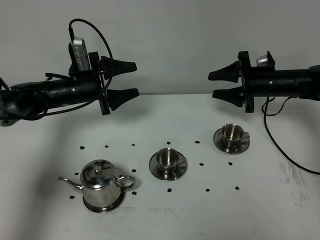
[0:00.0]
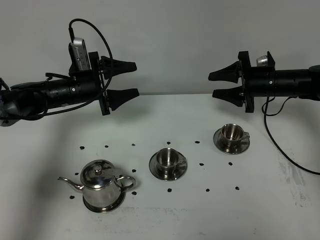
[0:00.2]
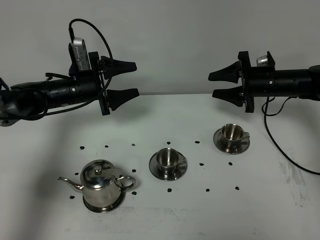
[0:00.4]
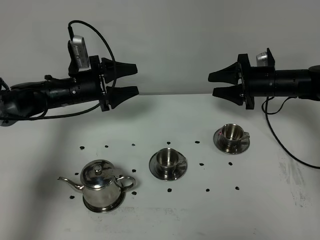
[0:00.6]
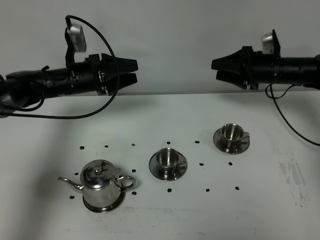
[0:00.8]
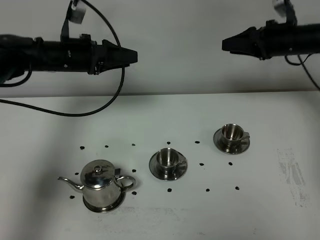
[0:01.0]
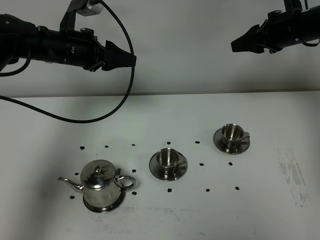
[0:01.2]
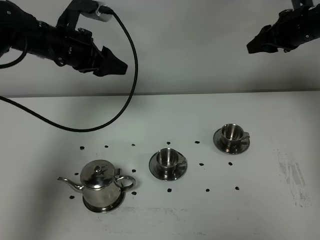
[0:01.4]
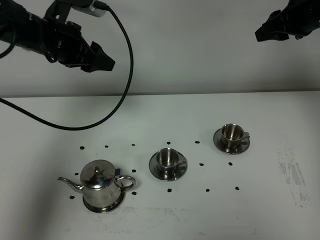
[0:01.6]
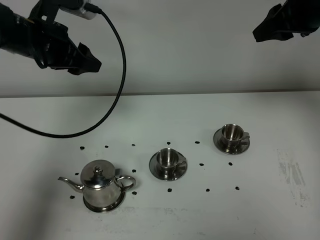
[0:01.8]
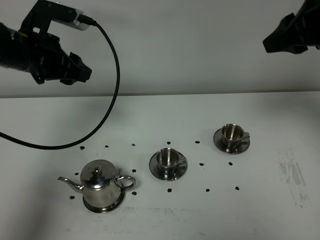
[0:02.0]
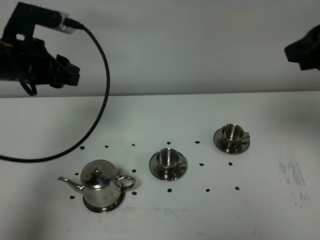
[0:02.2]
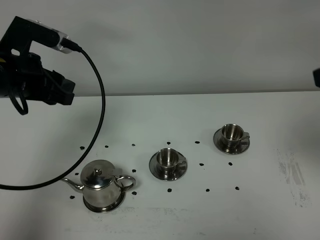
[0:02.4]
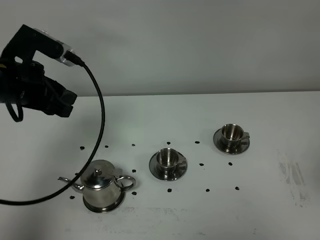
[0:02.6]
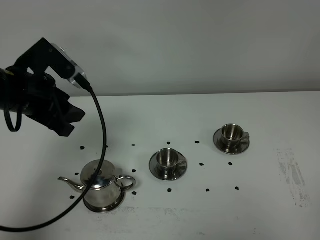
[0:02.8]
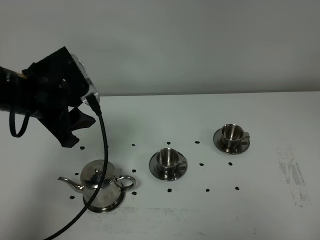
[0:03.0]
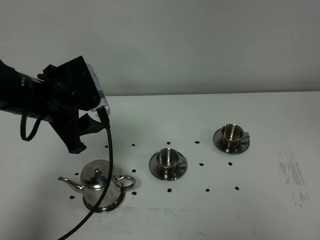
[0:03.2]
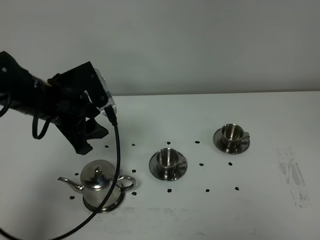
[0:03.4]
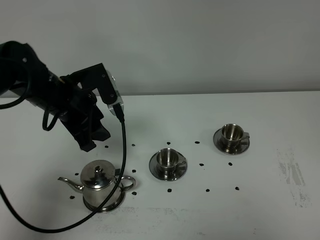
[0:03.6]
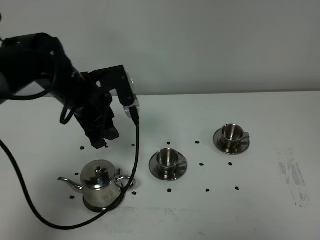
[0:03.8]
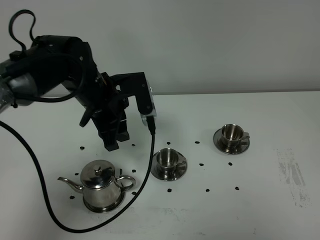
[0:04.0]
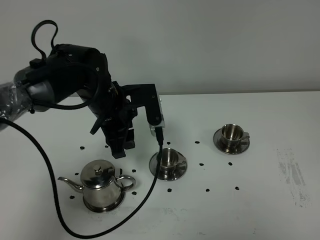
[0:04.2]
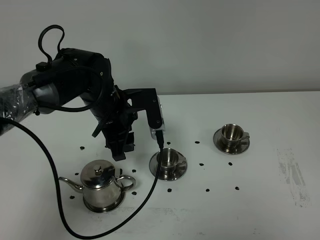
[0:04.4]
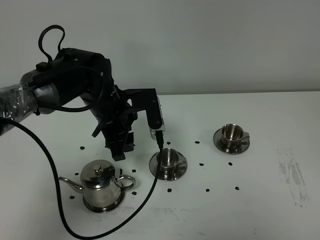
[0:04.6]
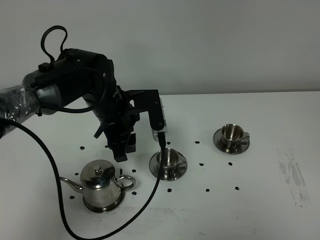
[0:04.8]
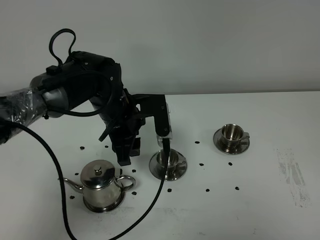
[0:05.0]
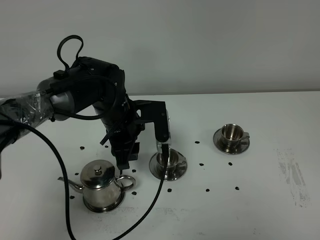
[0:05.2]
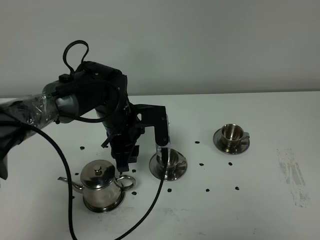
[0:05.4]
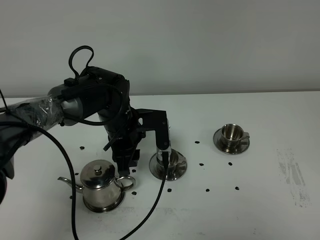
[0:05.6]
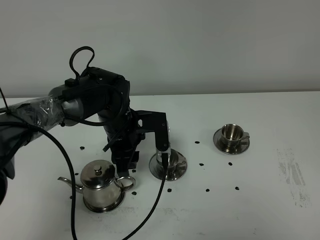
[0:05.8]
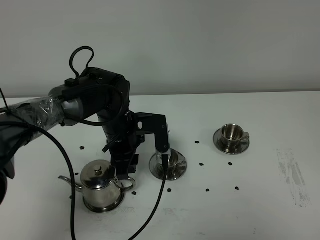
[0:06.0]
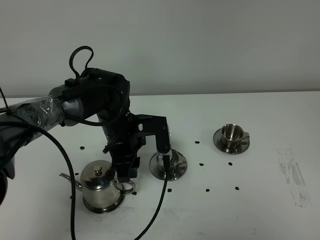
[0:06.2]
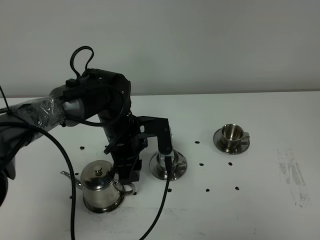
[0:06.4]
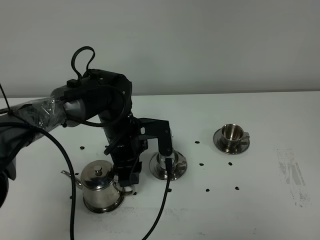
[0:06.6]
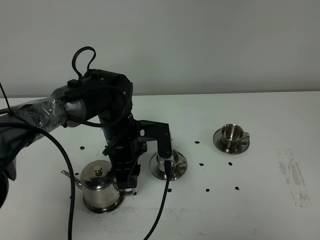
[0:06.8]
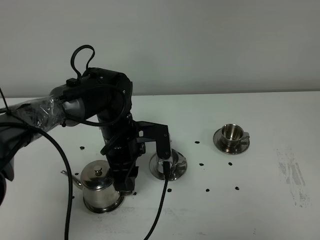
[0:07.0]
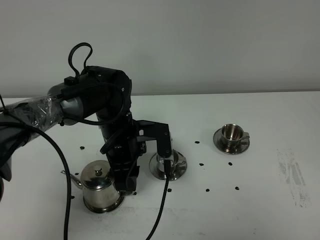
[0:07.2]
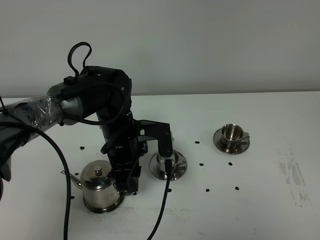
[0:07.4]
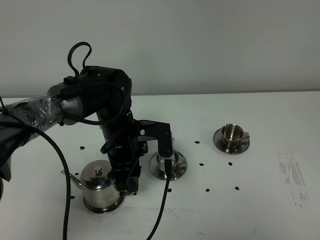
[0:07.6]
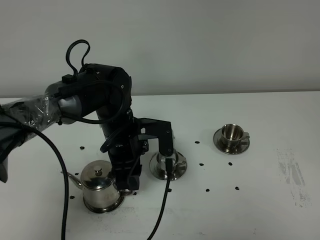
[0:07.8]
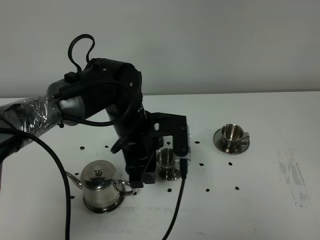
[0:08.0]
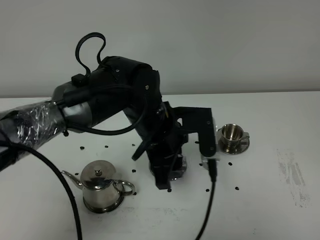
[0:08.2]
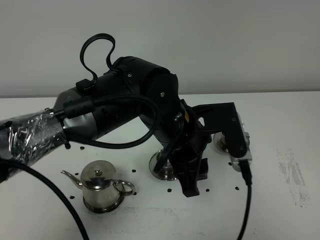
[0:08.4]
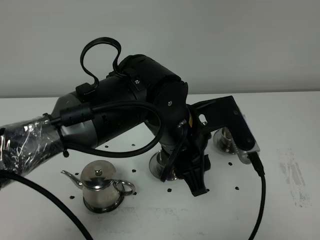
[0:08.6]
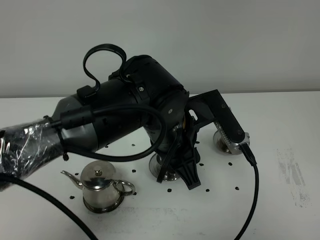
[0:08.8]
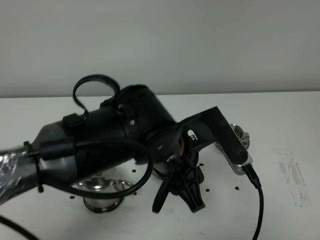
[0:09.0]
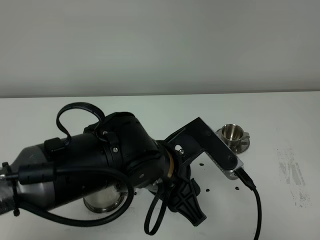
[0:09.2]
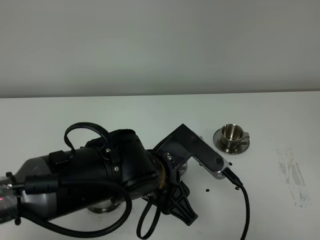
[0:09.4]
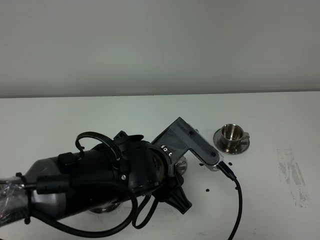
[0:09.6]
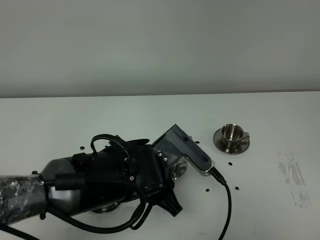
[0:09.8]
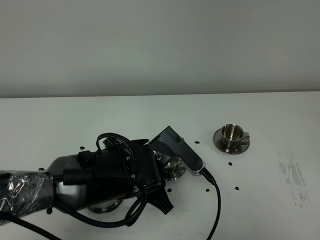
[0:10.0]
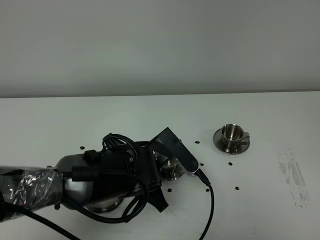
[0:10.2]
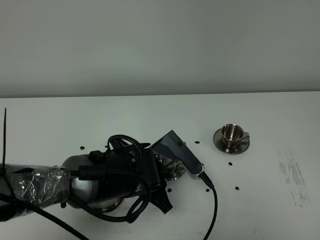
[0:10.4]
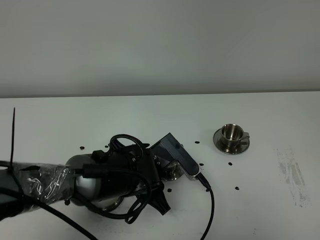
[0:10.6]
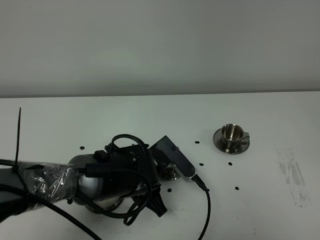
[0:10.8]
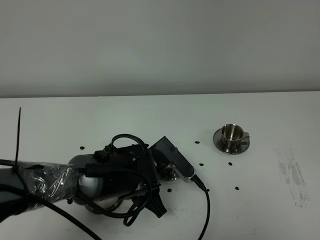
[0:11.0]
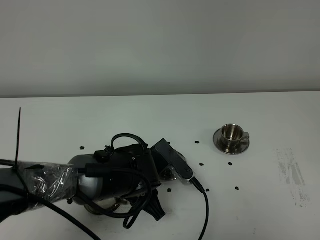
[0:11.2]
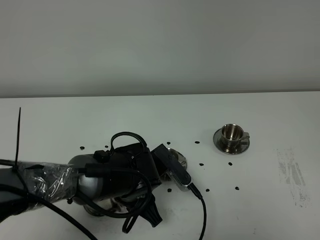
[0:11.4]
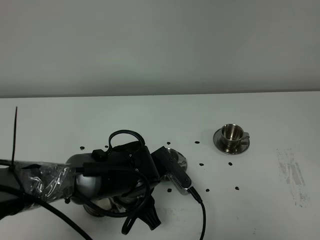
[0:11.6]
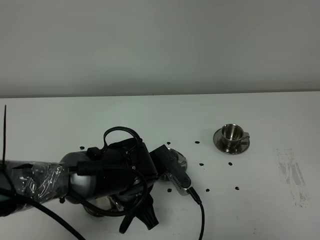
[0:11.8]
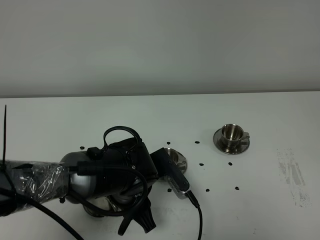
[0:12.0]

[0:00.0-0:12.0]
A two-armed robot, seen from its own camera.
Task of the whole recording: grasp the stainless steel teapot and pour the tea into the two stainless steel teacups one by one, put the stainless steel teapot back in its original place.
0:00.0 to 0:01.6: The two grippers go approximately 20 cm upward.
0:01.6 to 0:03.0: The left gripper goes some 10 cm backward. Meanwhile the right gripper heads backward, covering some 50 cm, and closes its fingers.
0:03.0 to 0:04.4: The right gripper shifts roughly 10 cm downward, and closes; the left gripper moves to the right, downward and forward, about 15 cm.
0:04.4 to 0:06.0: The grippers make only small movements.
0:06.0 to 0:07.6: The grippers move only a little.
0:07.6 to 0:09.0: The left gripper travels backward, to the right and upward by approximately 15 cm.
0:09.0 to 0:10.4: The left gripper is displaced downward by about 10 cm.
0:10.4 to 0:12.0: The grippers move only a little.

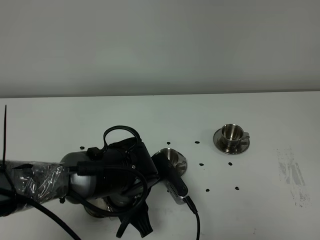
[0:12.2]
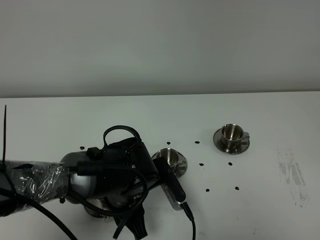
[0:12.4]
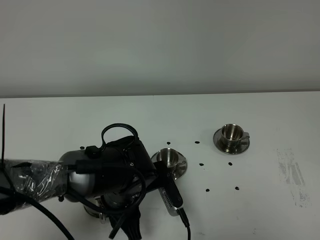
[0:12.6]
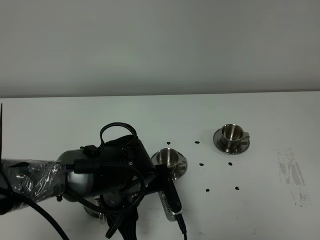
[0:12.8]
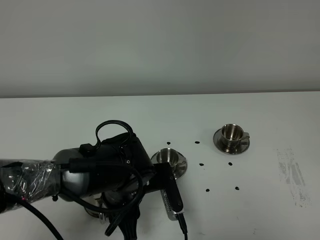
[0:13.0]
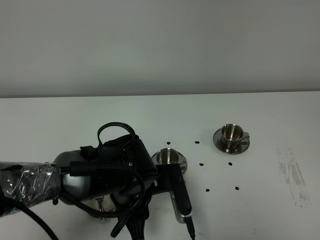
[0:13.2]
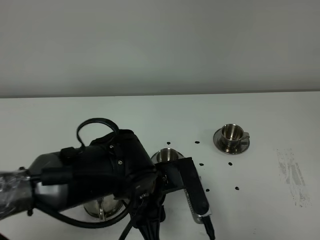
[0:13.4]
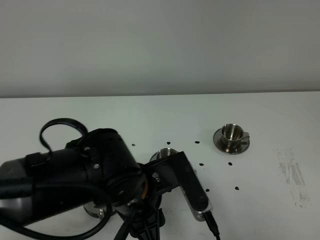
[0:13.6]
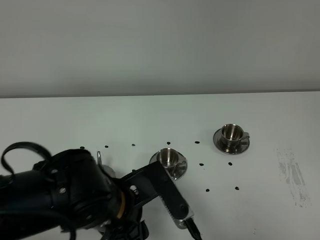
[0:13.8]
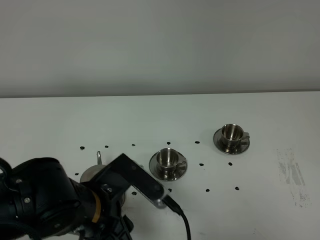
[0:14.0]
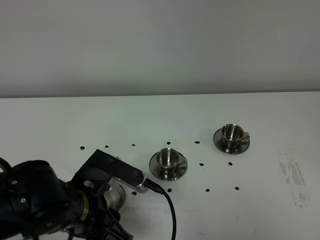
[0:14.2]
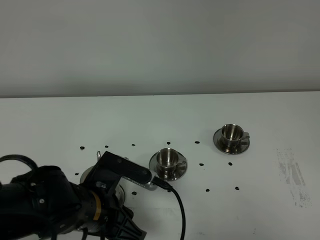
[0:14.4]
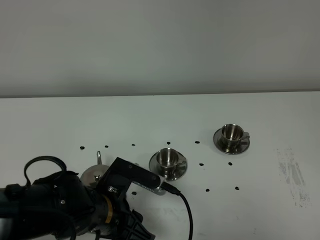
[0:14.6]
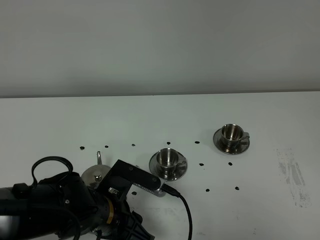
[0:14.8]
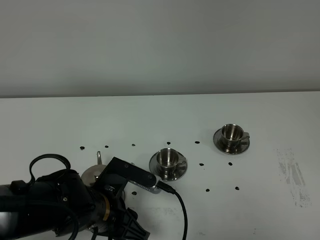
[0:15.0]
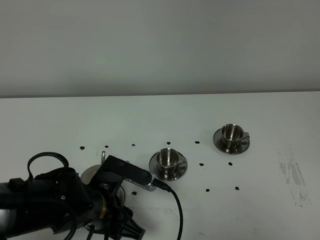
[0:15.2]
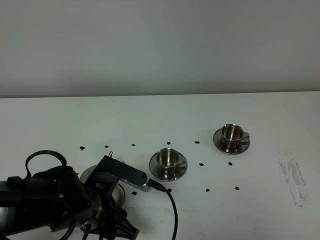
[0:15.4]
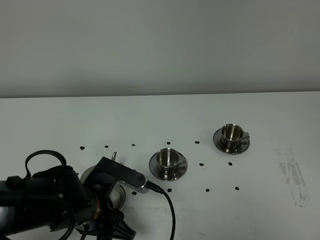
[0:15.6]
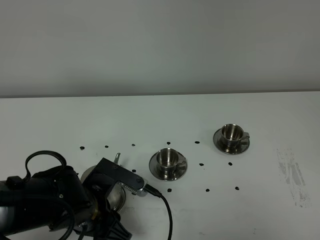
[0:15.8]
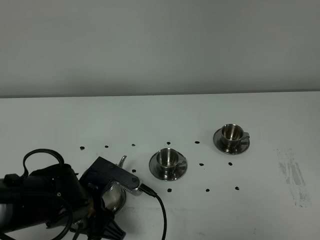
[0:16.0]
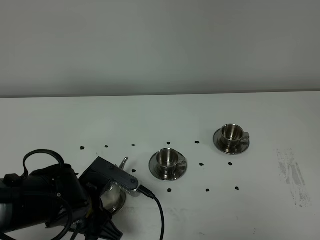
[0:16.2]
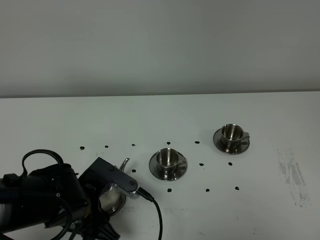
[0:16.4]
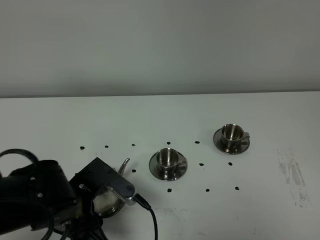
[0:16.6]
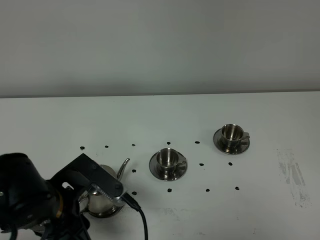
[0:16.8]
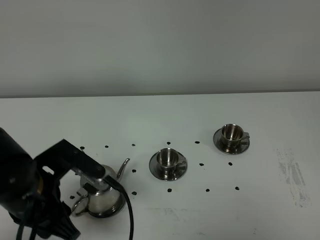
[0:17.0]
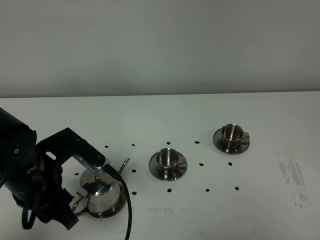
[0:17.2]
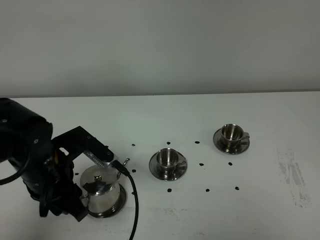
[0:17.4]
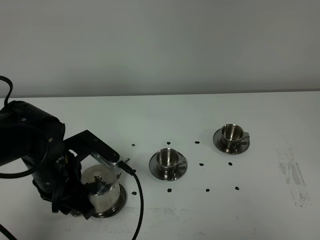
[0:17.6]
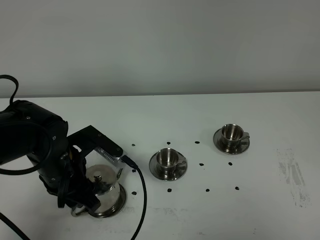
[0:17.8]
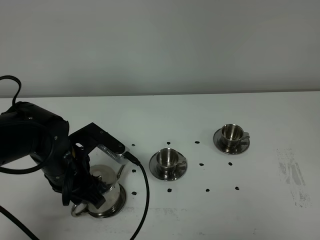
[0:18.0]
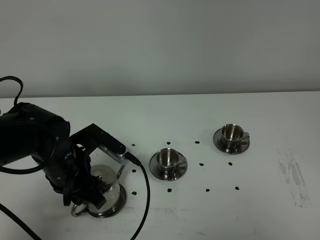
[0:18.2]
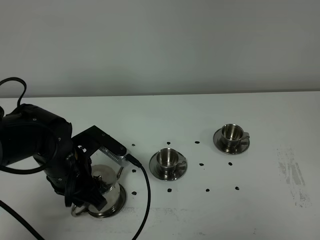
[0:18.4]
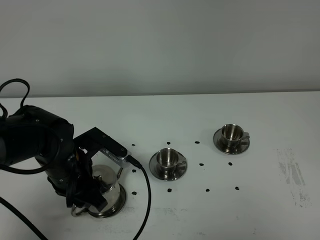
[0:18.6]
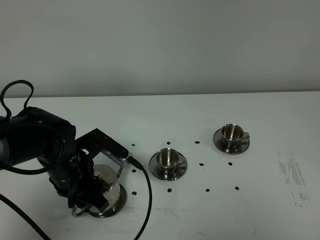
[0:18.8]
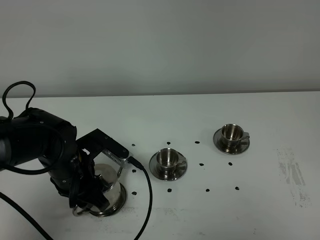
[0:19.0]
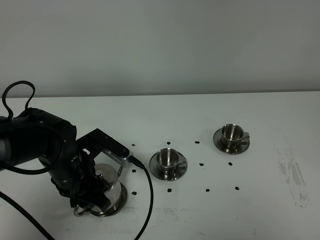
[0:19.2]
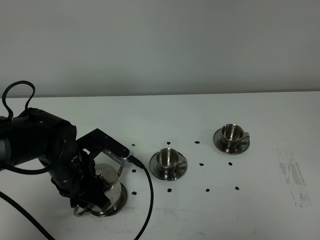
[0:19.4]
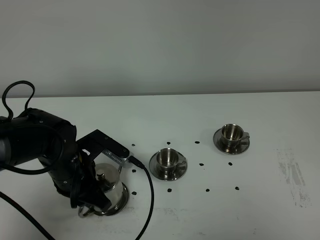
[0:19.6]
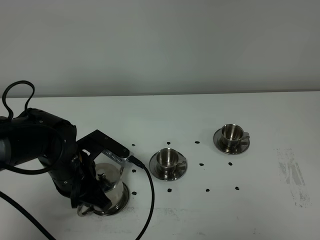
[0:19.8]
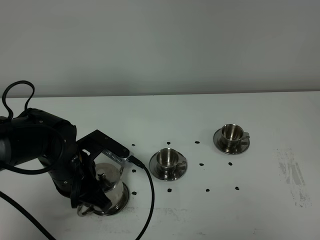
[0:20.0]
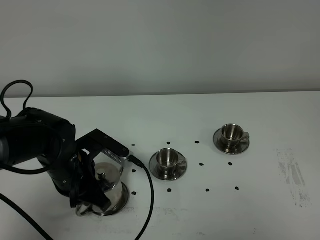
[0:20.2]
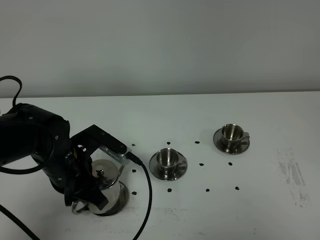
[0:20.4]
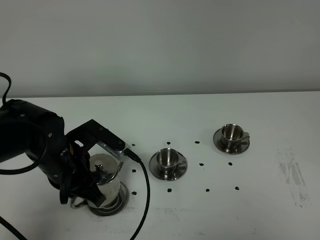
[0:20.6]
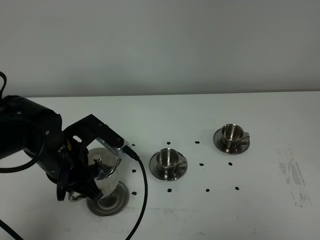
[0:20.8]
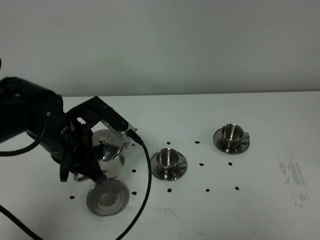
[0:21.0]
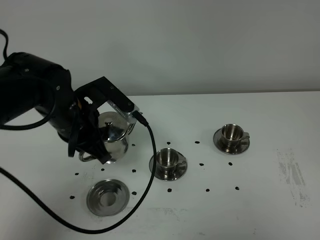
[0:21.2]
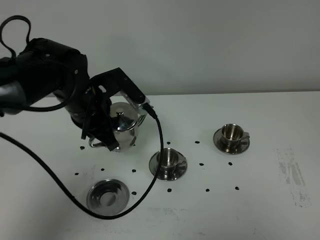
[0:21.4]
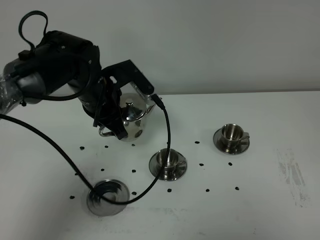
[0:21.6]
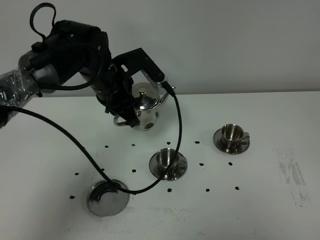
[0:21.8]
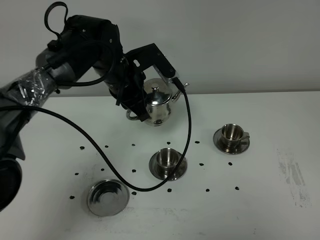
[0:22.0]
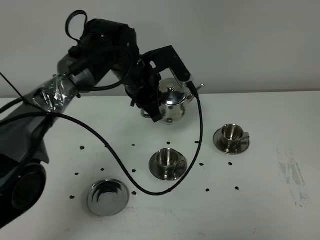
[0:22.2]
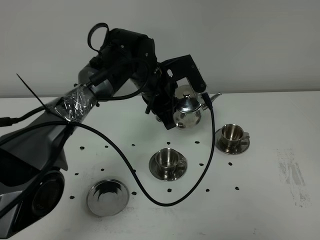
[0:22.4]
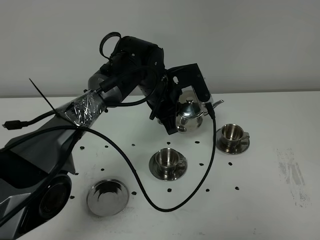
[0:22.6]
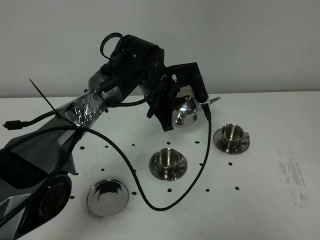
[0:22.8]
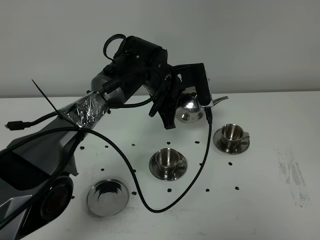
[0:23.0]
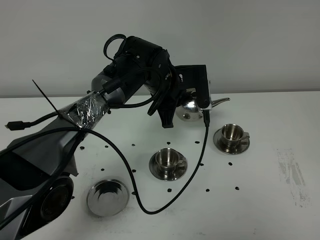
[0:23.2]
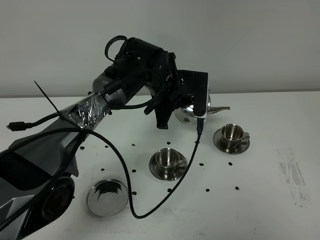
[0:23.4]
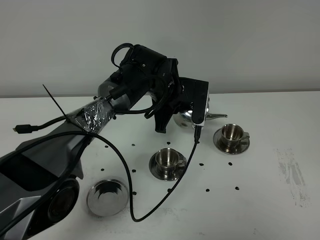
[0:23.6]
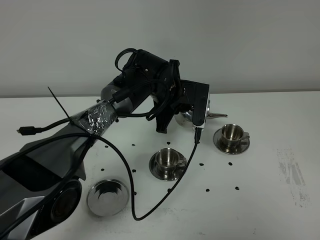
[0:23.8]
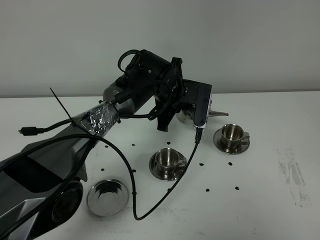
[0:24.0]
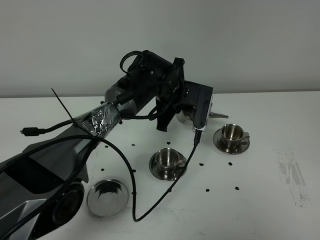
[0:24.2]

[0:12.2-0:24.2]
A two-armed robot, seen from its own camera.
Task of the whole recording: grasp the stainless steel teapot and pour the tea into the two stainless steel teacups one by one, put the stainless steel teapot back in its original place.
Step, 0:12.2 to 0:20.4: Pick up the teapot with the left gripper.
0:12.2 to 0:13.8: The left gripper is displaced backward and upward by roughly 10 cm.
0:13.8 to 0:15.2: The left gripper is displaced downward by some 5 cm.
0:15.2 to 0:16.6: There are only small adjustments of the grippers.
0:16.6 to 0:18.2: The left gripper is displaced forward by approximately 10 cm.
0:18.2 to 0:19.8: The left gripper closes.
0:19.8 to 0:21.2: The left gripper moves upward, approximately 10 cm.
0:21.2 to 0:22.6: The left gripper travels to the right and forward by roughly 15 cm.
